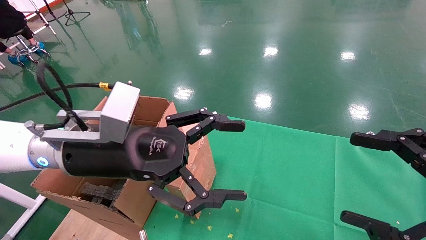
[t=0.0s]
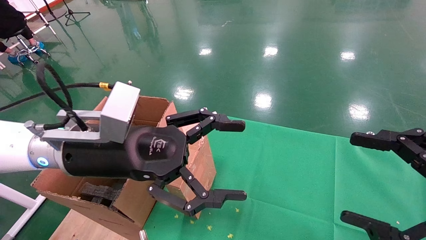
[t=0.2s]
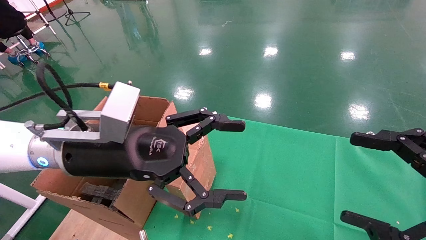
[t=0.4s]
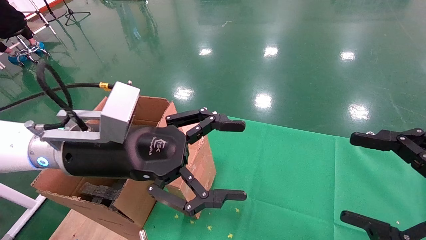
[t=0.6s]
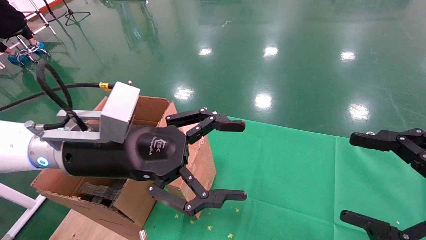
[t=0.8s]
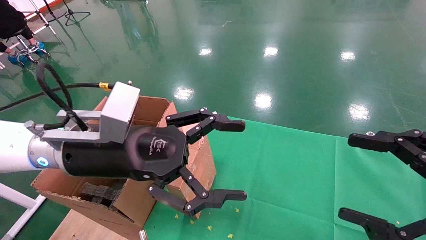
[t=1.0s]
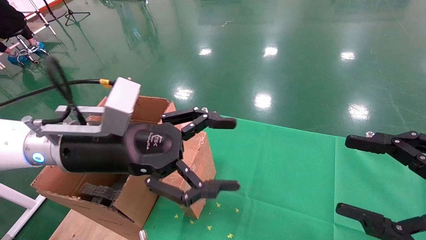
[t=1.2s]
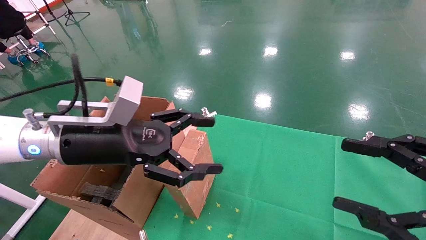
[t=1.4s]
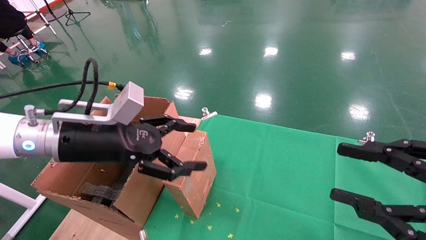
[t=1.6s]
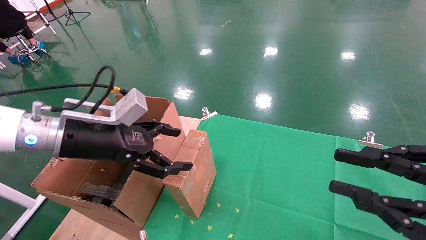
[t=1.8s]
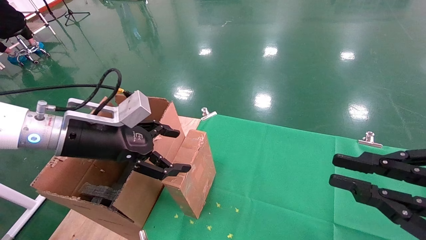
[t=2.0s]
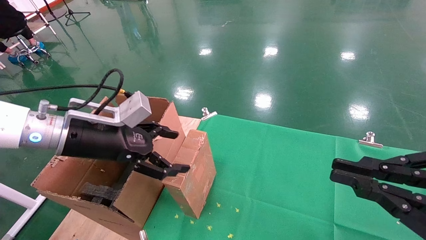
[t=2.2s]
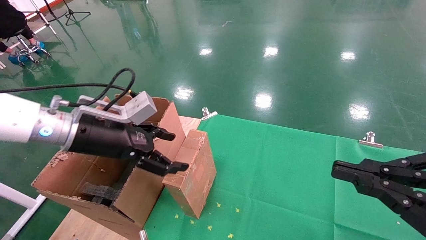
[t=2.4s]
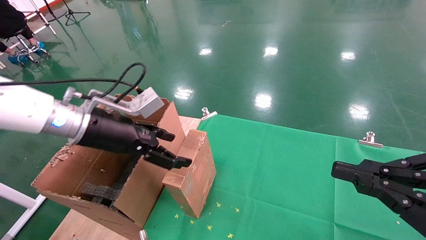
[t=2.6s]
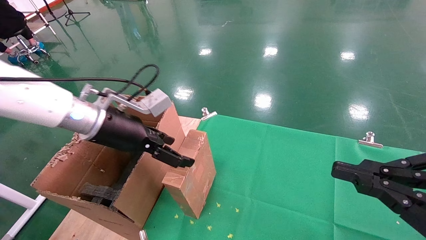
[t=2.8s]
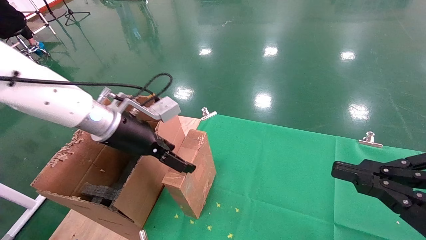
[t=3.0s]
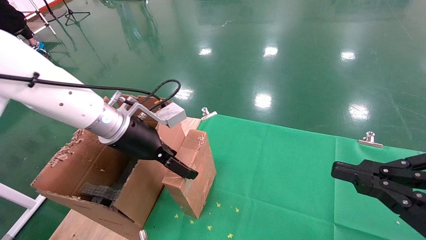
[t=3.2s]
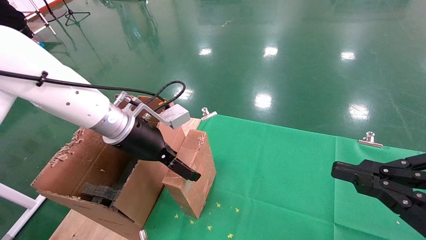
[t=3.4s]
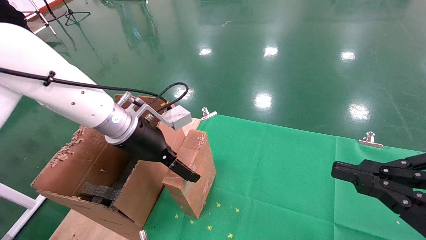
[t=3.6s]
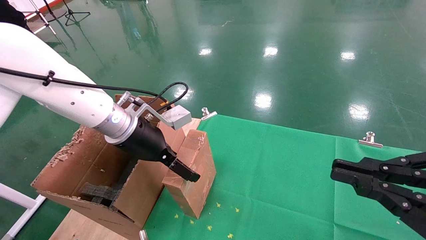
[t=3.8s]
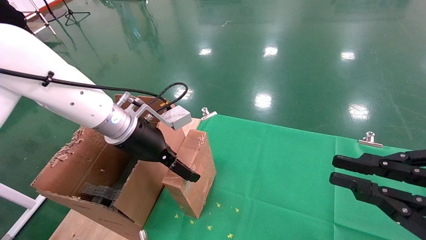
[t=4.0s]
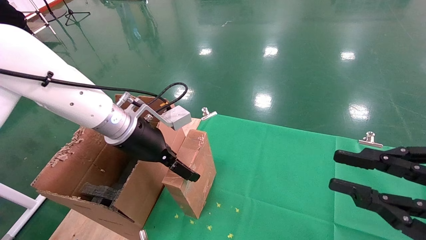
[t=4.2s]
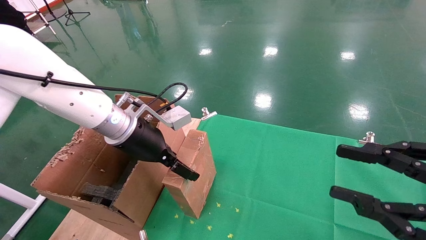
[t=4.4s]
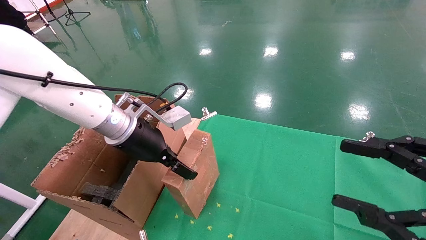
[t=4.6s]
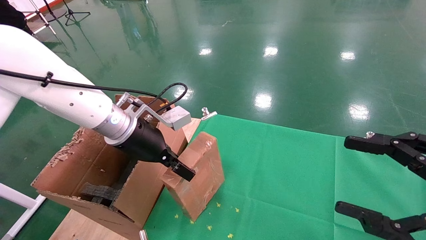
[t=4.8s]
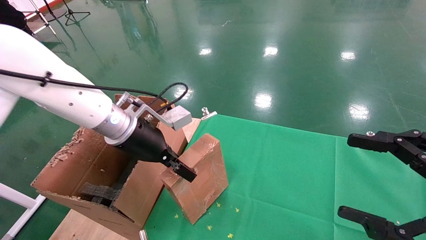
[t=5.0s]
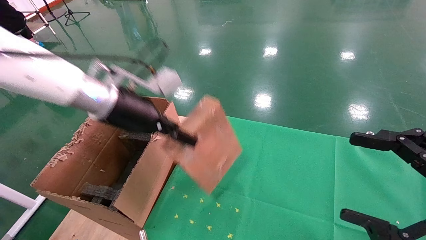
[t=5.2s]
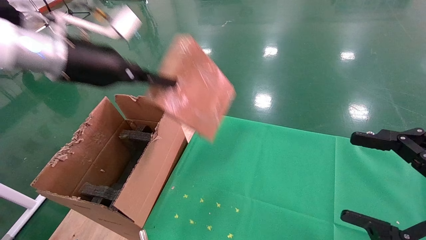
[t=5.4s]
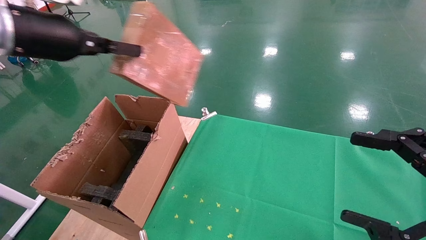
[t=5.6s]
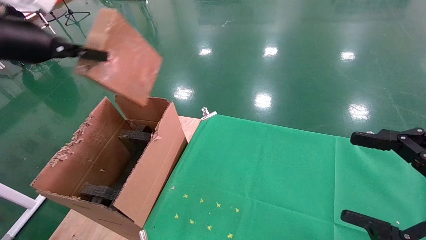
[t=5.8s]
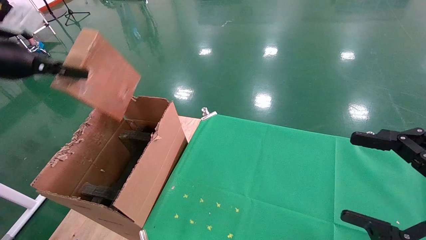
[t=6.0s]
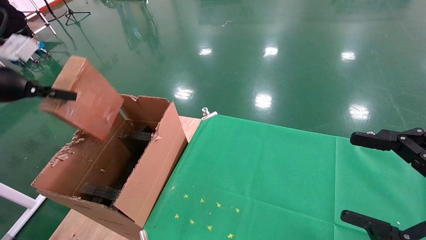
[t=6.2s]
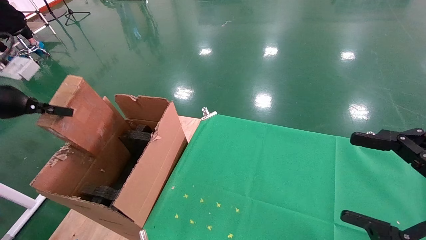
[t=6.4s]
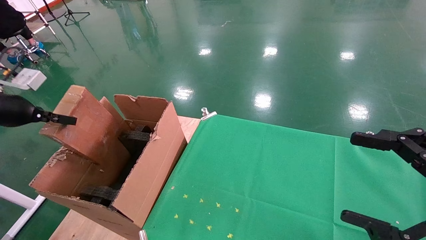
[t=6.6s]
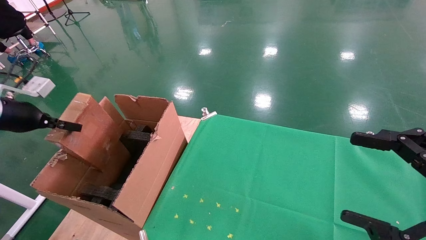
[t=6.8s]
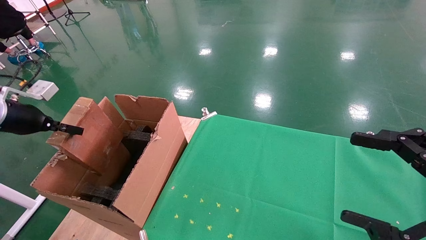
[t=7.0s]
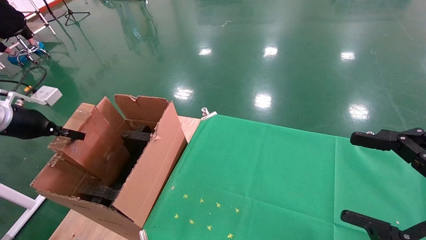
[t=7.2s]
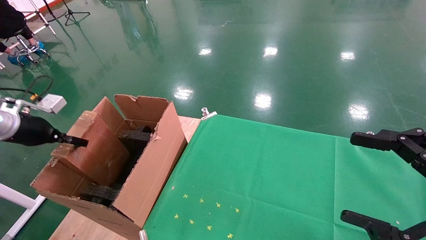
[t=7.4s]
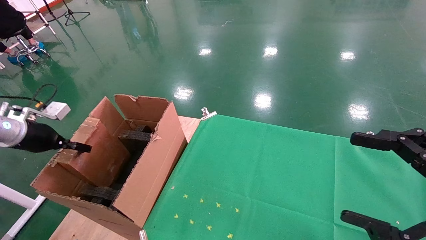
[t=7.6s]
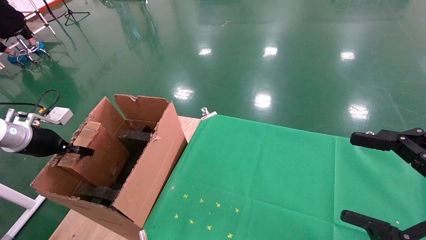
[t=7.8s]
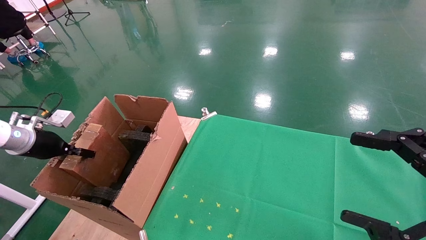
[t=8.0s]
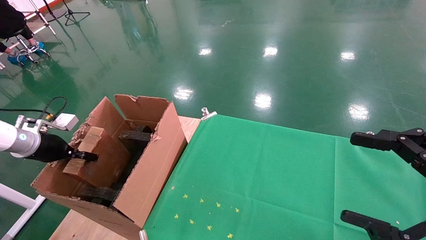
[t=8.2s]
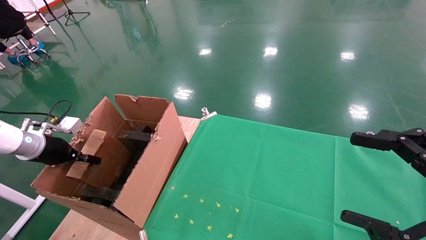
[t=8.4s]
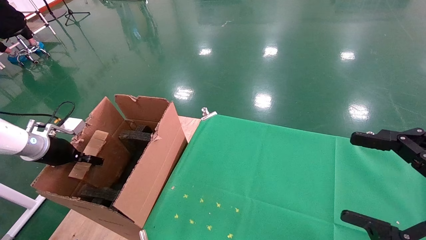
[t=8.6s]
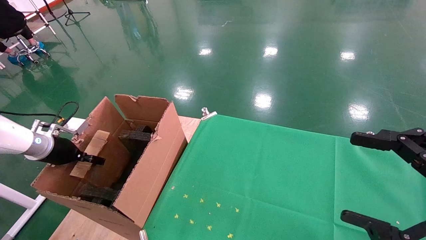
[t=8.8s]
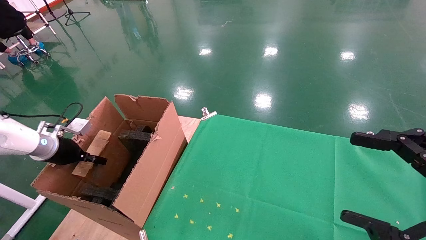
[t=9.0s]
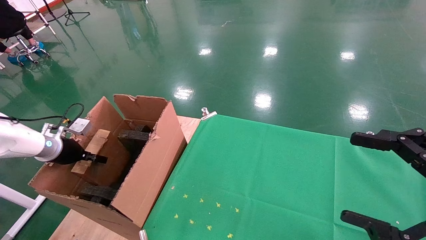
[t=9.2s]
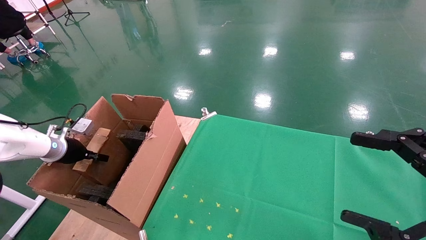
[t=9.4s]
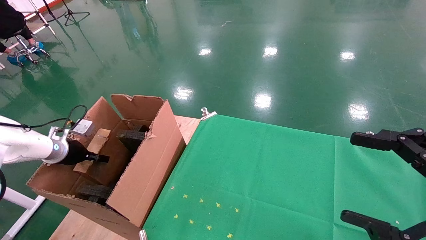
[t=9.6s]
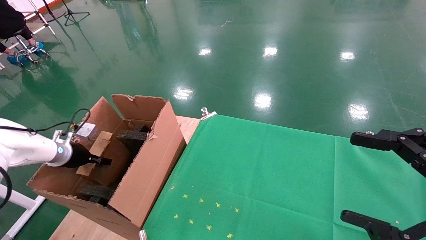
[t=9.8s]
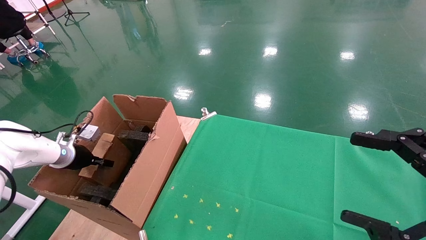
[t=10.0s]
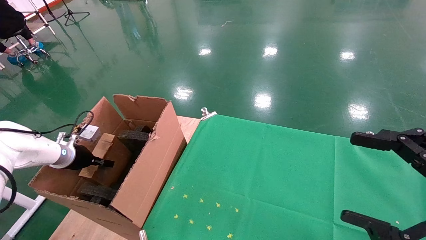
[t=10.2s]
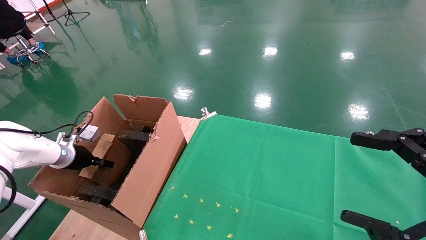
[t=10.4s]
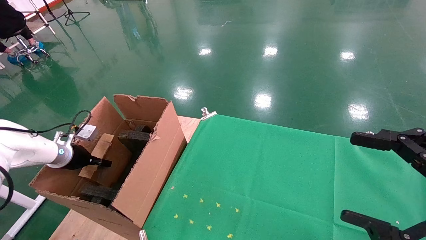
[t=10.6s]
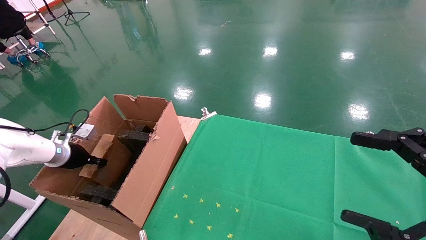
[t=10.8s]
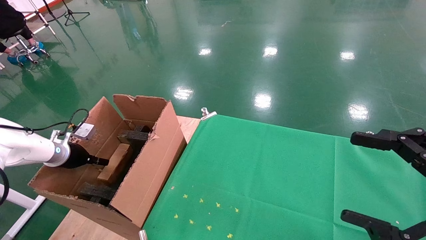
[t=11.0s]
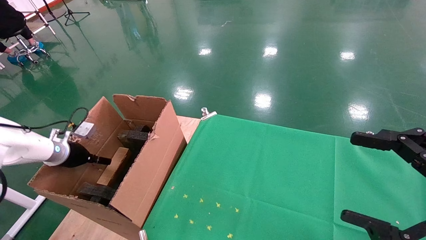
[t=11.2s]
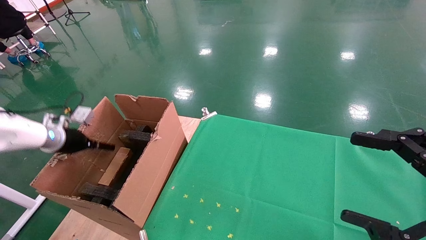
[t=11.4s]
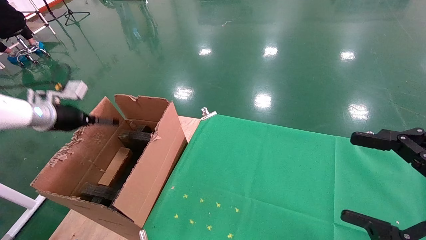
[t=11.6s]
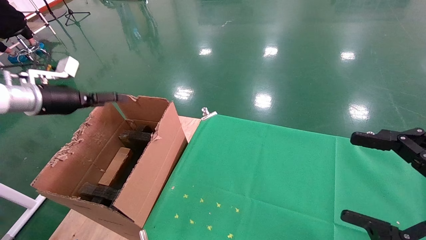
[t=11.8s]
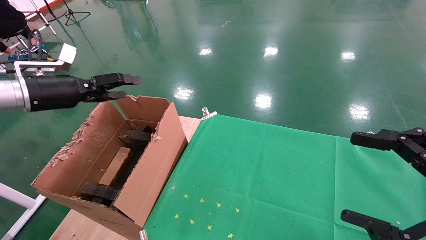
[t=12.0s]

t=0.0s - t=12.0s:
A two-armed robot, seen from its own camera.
Task of the whole recording: using a robotic arm to pick up a cardboard box and palace it the carton.
Step, t=1.4s - t=4.8s: Pick up the mouse and the power cord paper box.
Step, t=5.0s - t=11.8s: Place the mouse and the power cord paper box into the container.
t=0.0s - t=1.6s: The right gripper closes its fingers; the left gripper shifts roughly 5 cm to the left.
t=1.6s - t=3.0s: The left gripper heads forward, covering some 5 cm, while the right gripper closes.
t=3.0s - t=4.4s: There are only small adjustments of the grippers.
t=4.4s - t=6.0s: The right gripper opens. The left gripper shifts roughly 25 cm to the left and upward, and closes up.
t=6.0s - t=7.6s: The left gripper is displaced downward and to the left by about 20 cm.
t=7.6s - t=9.0s: The left gripper is displaced downward by roughly 5 cm.
t=9.0s - t=10.4s: There are only small adjustments of the grippers.
t=10.4s - t=12.0s: The left gripper is displaced upward by approximately 20 cm, and opens up.

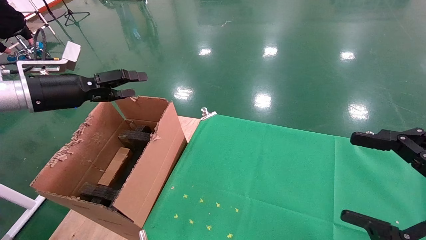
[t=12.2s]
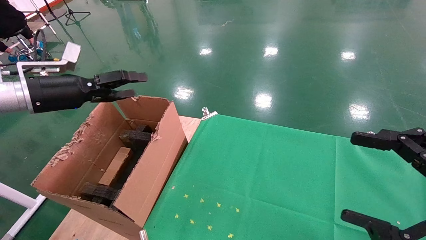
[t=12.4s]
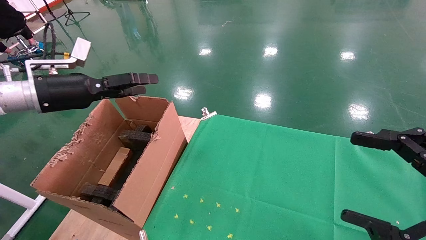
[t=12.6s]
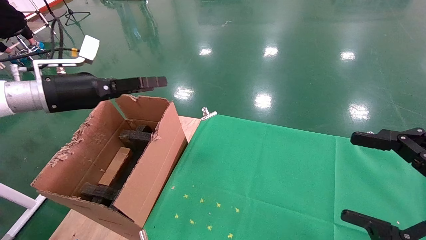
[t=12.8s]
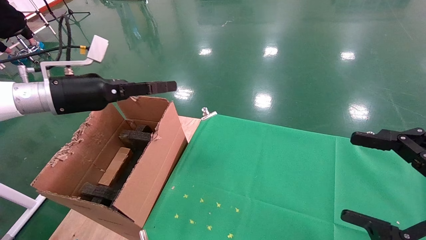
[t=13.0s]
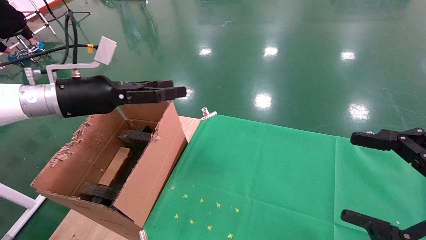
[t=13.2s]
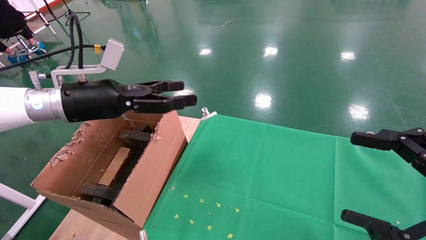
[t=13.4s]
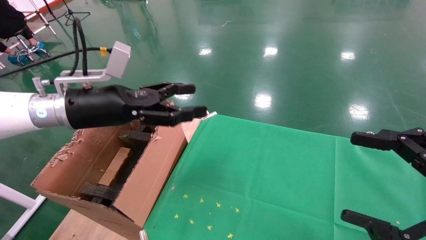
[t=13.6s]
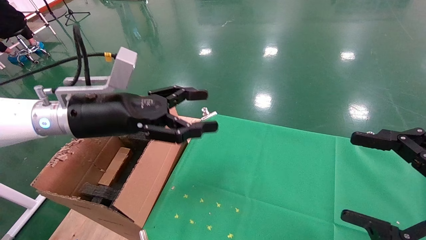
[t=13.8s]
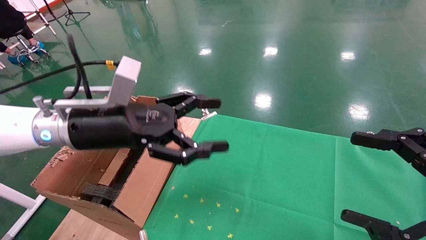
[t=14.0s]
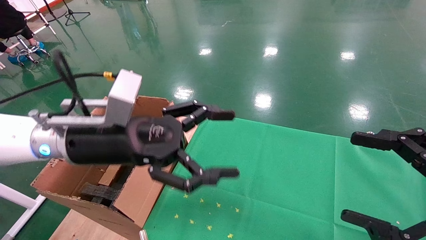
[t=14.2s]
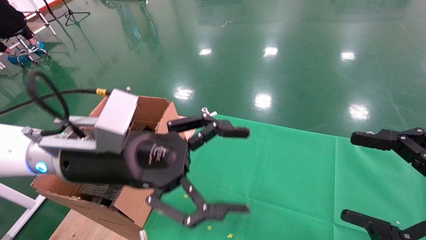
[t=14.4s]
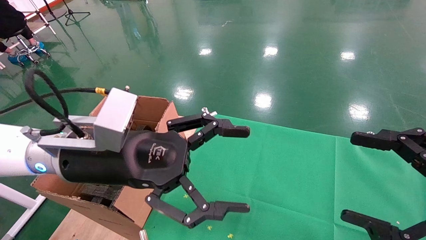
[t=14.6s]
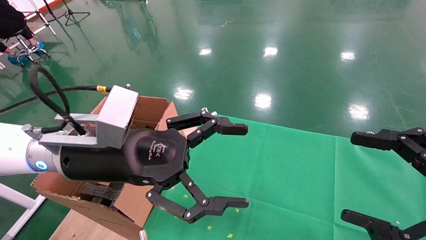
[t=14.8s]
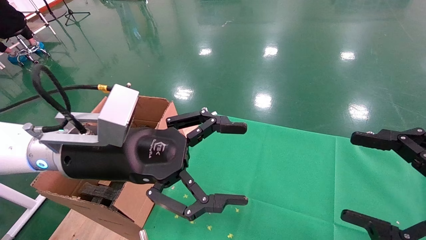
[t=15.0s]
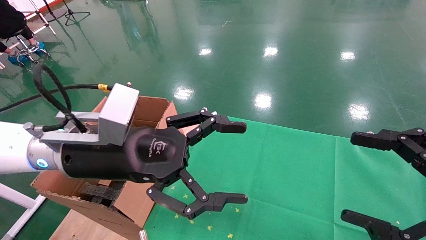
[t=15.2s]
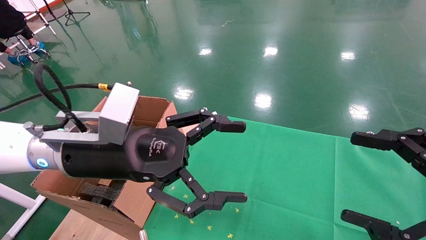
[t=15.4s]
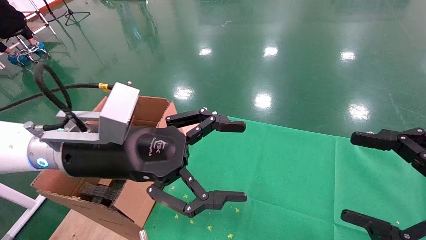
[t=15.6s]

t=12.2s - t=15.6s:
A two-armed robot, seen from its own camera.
Task of the whole recording: using a robotic arm to pick up a cardboard box and palace it the carton.
t=12.2s - t=13.8s: The left gripper travels to the right by approximately 15 cm.
t=13.8s - t=15.6s: The left gripper goes some 10 cm to the right and backward.
